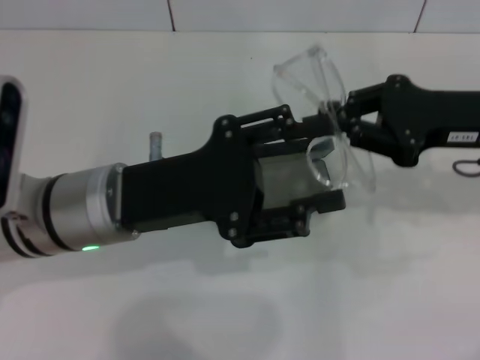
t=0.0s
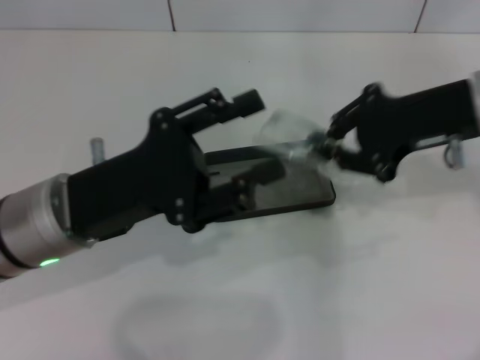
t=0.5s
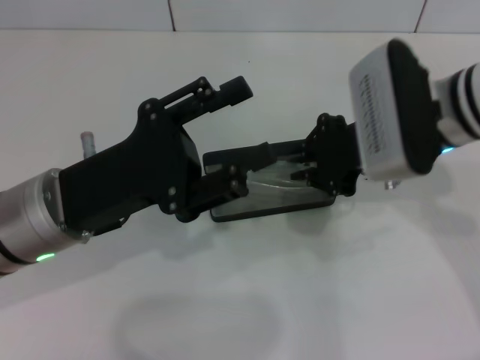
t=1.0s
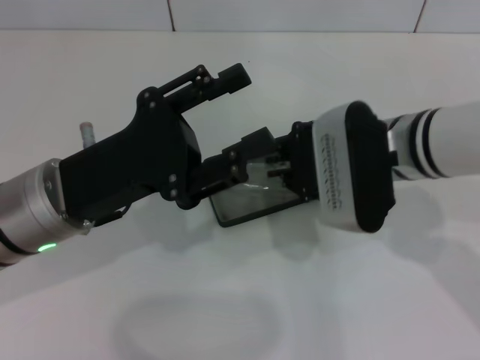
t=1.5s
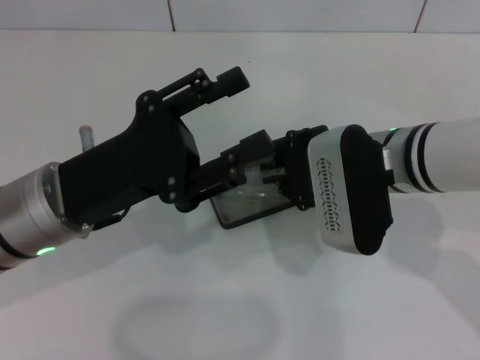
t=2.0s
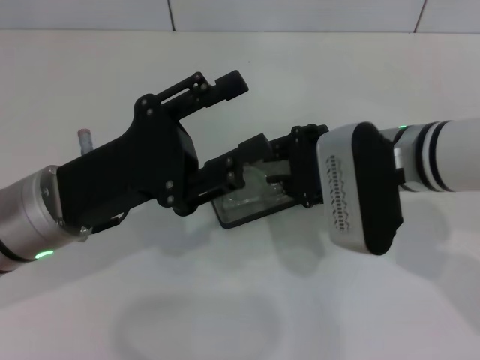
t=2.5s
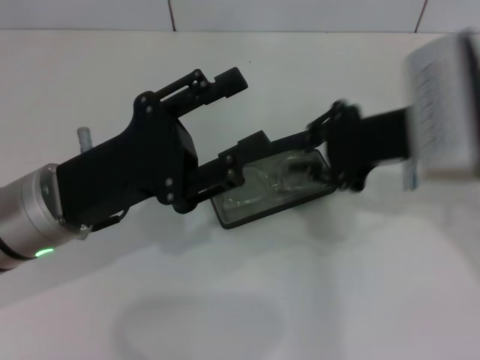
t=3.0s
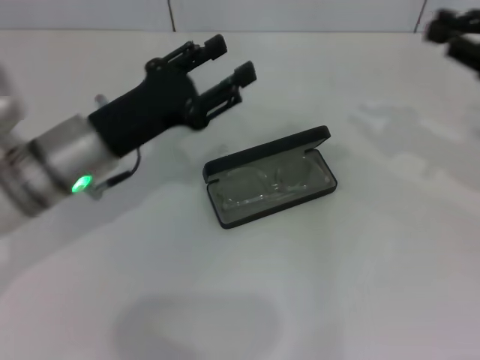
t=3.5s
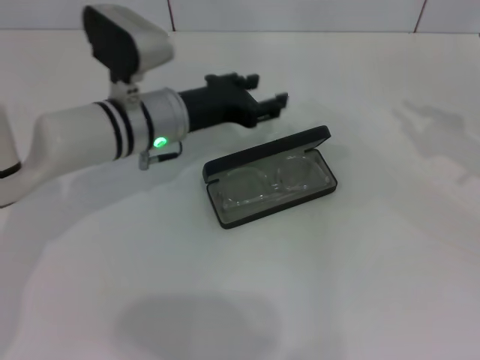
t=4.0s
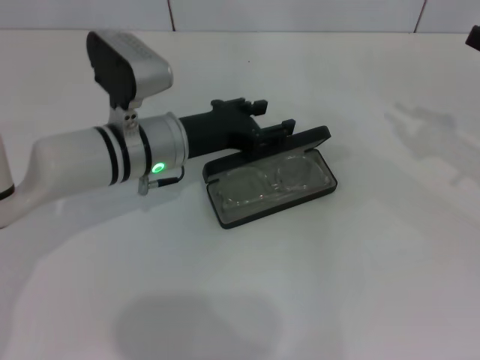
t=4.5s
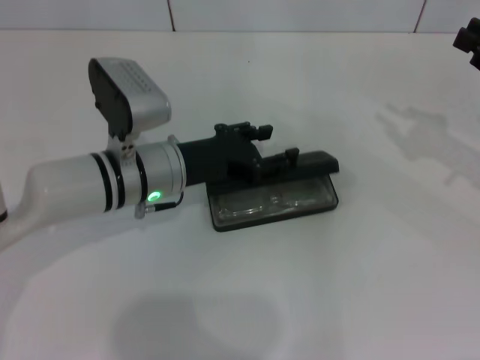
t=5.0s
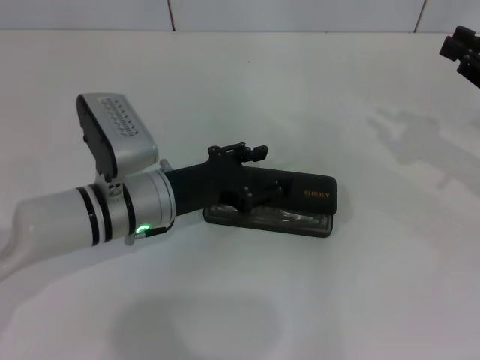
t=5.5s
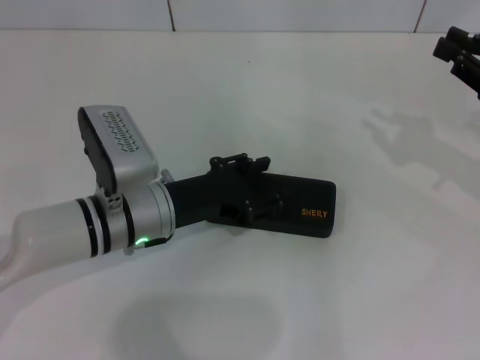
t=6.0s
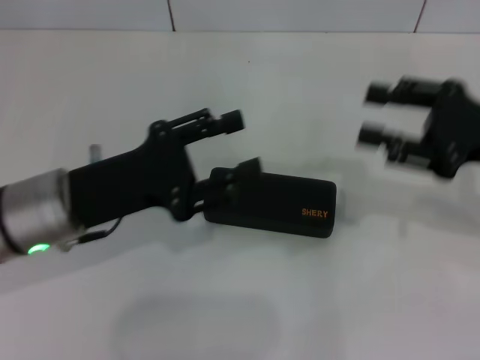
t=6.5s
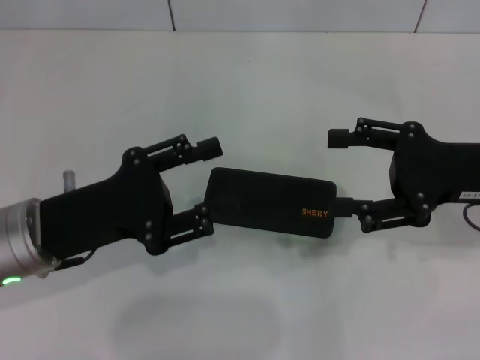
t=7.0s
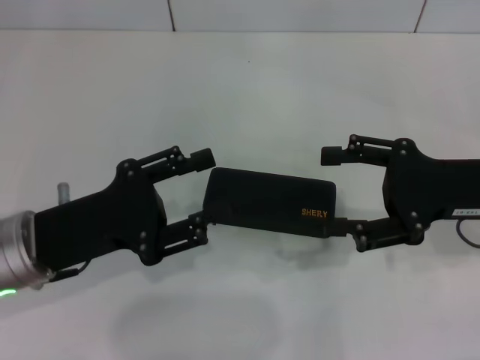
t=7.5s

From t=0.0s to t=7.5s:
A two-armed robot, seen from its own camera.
Step, from t=0.0s to t=2.5s: Put the glasses into the case with your right hand.
Step, from t=3.0s to t=6.0s: Close the glasses case with your left hand.
From t=0.0s to t=2.0s: The right gripper moves to the left, roughly 10 cm.
From t=2.0s to t=4.0s: The left gripper travels forward and to the right by approximately 15 cm; the right gripper shifts roughly 25 cm to the right.
From t=4.0s to t=5.5s: The left gripper heads backward, covering some 5 cm.
From t=5.5s to t=7.5s: The right gripper moves to the left, some 10 cm, and opens; the left gripper shifts about 10 cm to the left and backward.

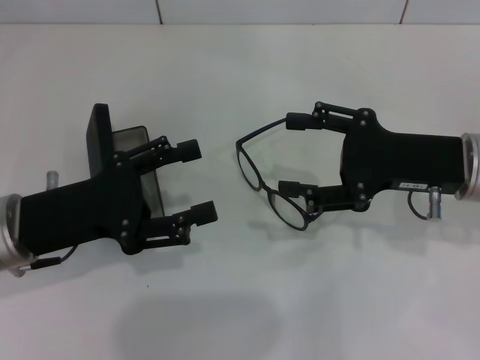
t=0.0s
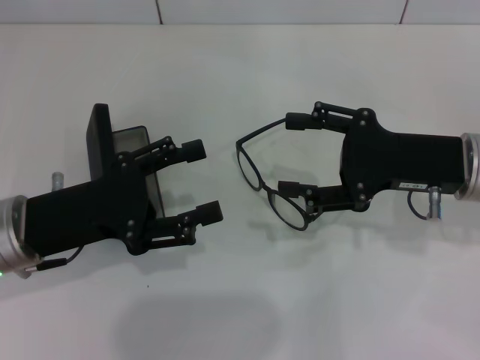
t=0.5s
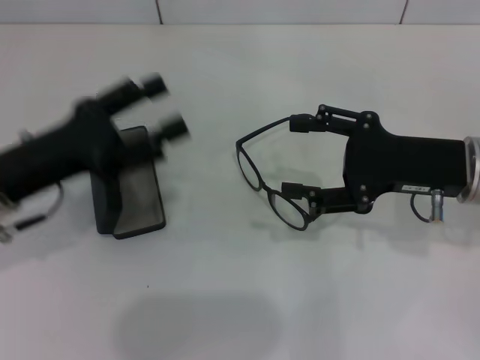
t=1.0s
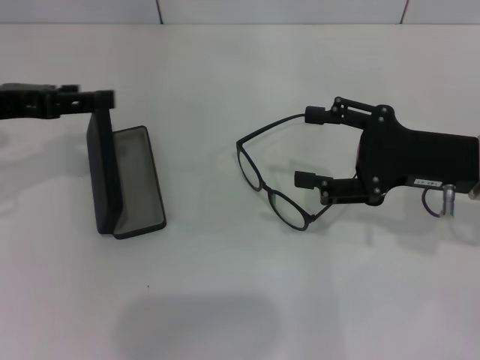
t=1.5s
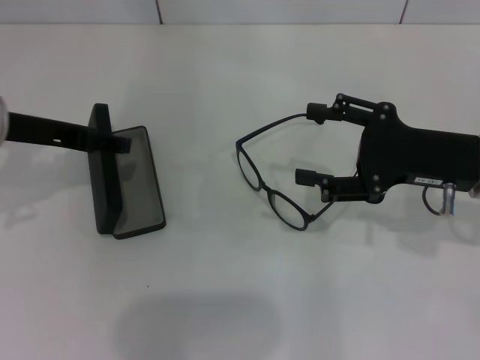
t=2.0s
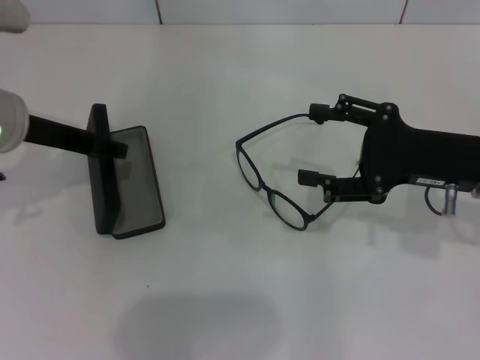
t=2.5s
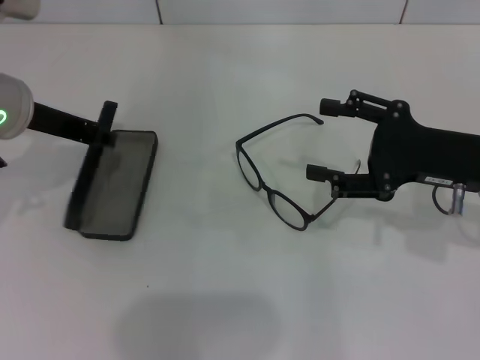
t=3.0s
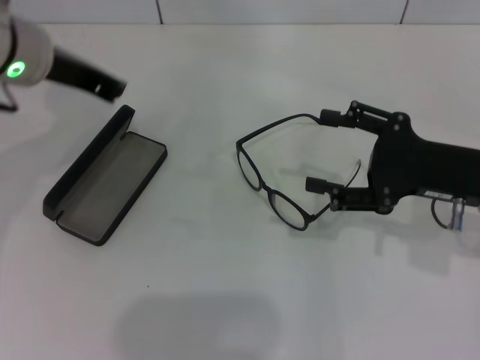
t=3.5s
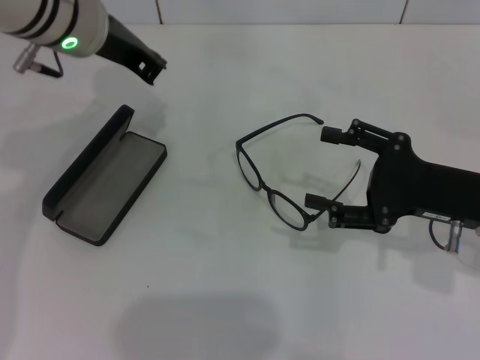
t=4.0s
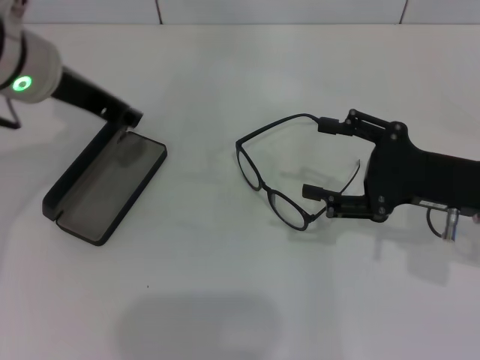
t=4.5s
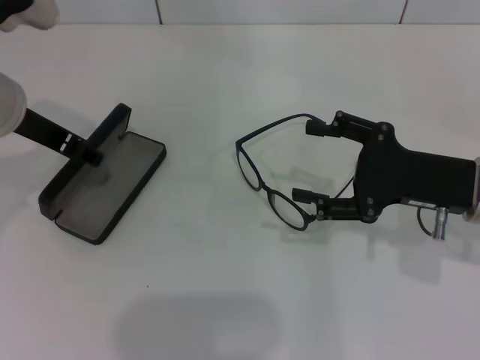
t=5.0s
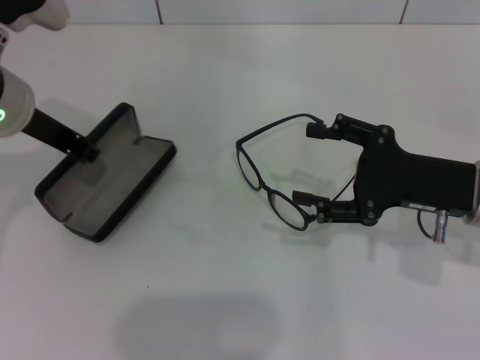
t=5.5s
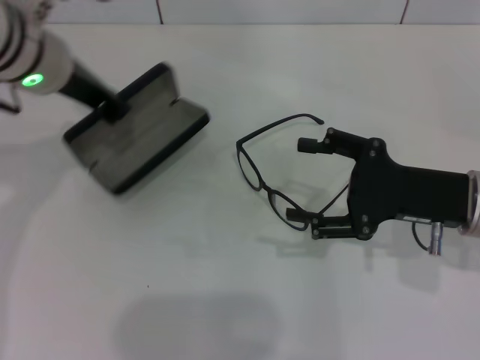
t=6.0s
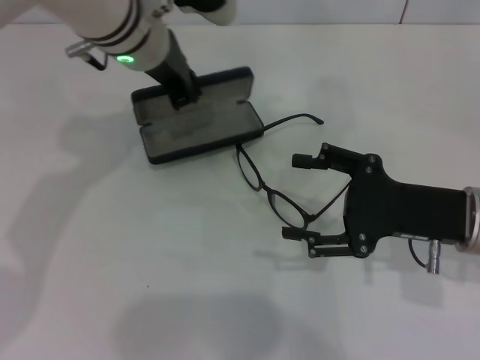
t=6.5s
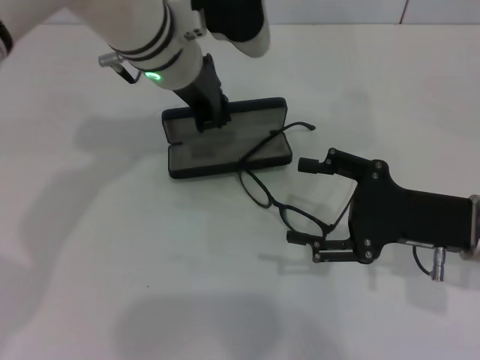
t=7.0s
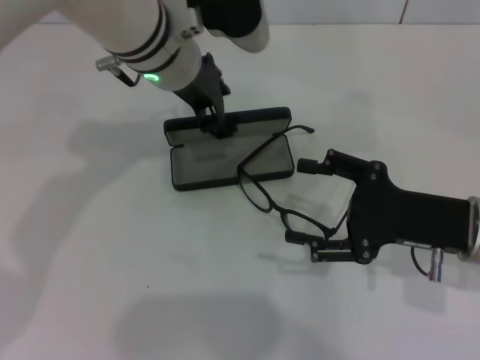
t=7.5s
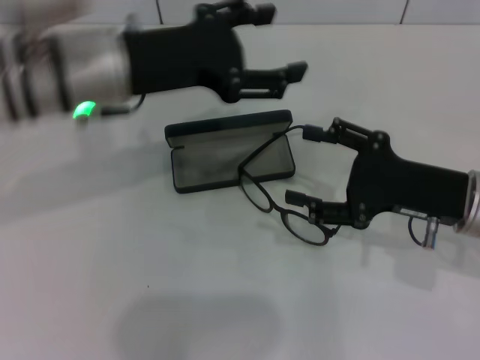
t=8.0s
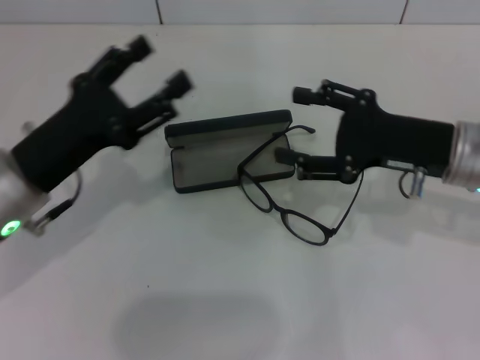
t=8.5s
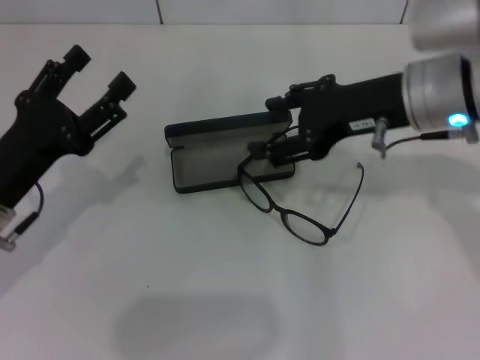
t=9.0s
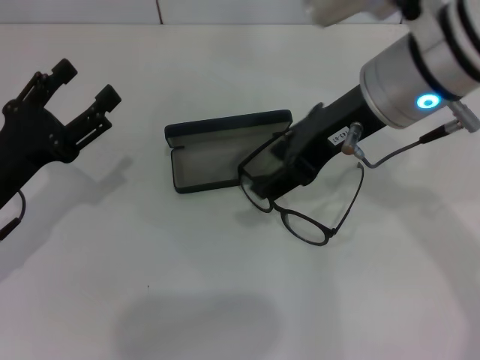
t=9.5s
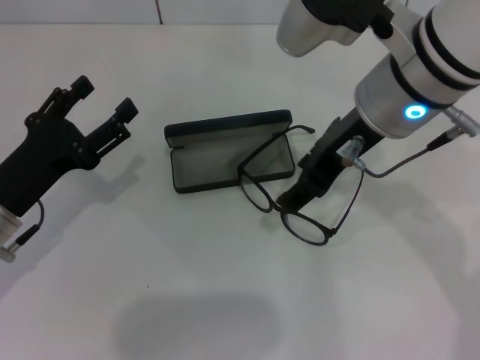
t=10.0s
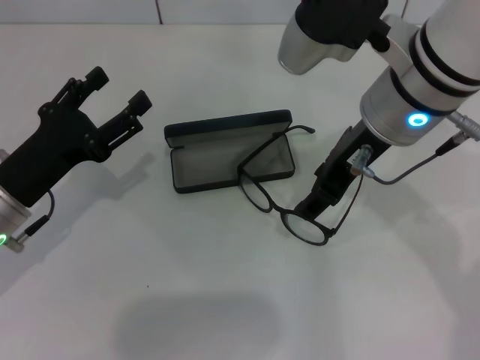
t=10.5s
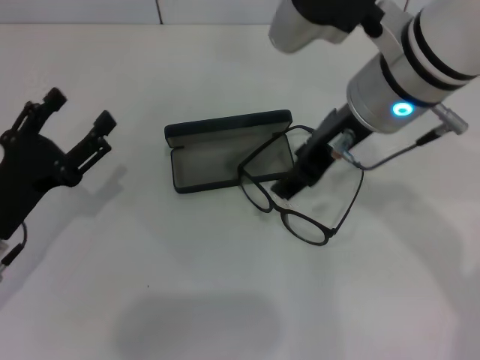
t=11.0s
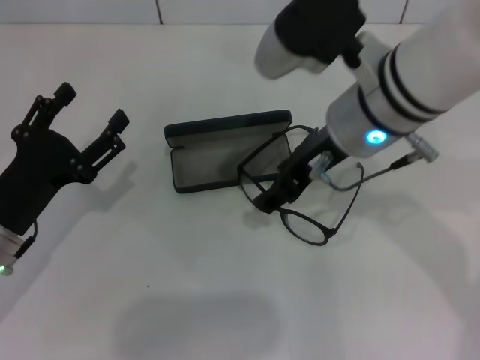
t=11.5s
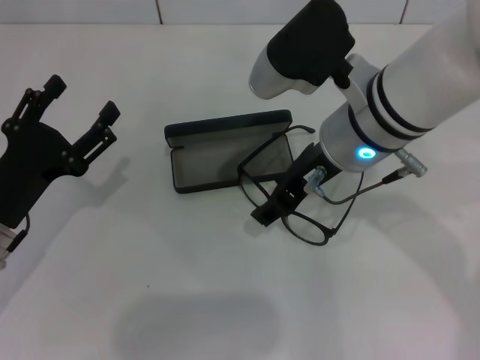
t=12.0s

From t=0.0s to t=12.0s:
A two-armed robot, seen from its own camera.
Step, from t=0.0s to t=5.0s: Grab the glasses case with your left hand.
Step, from t=5.5s to t=7.5s: Place the glasses case in the center of the table with your left hand.
From t=0.0s to t=2.0s: The left gripper travels upward and forward by about 10 cm.
From t=2.0s to t=4.0s: The left gripper is displaced to the right and forward by approximately 10 cm, and closes up.
From t=4.0s to t=6.0s: The left gripper opens and closes again.
From t=6.0s to t=8.0s: The left gripper goes to the right and returns, some 10 cm each way, and opens its fingers.
From t=8.0s to t=10.0s: The left gripper goes approximately 20 cm downward, to the left and backward; the right gripper heads upward and to the left, covering some 20 cm.
From t=10.0s to t=12.0s: The right gripper travels downward by about 5 cm.

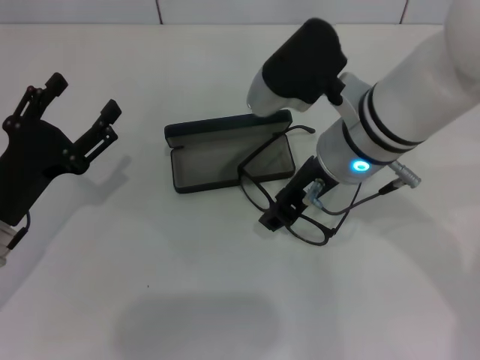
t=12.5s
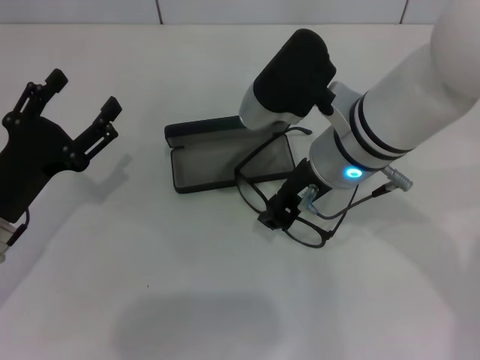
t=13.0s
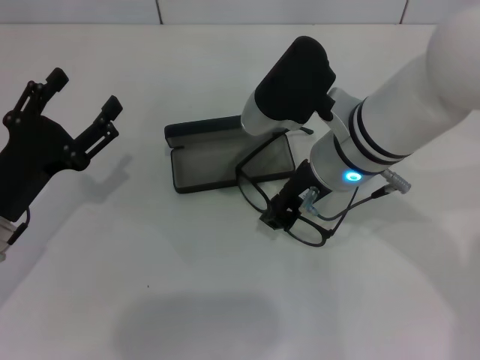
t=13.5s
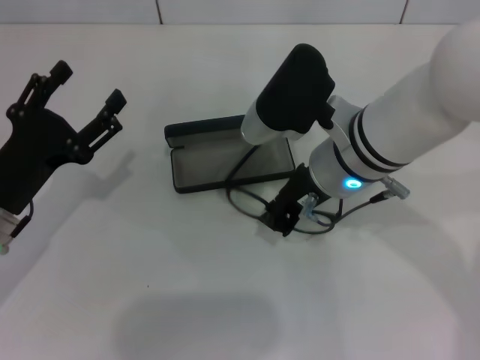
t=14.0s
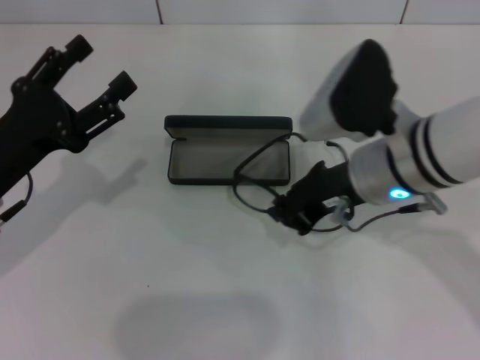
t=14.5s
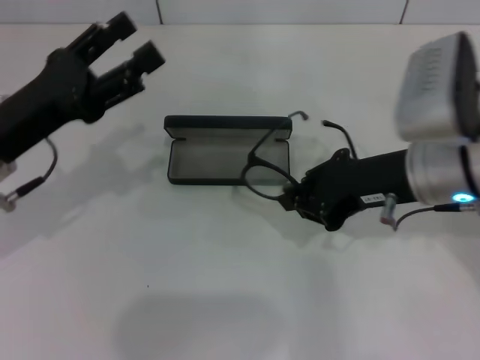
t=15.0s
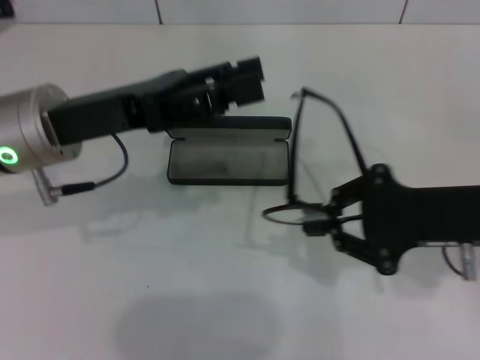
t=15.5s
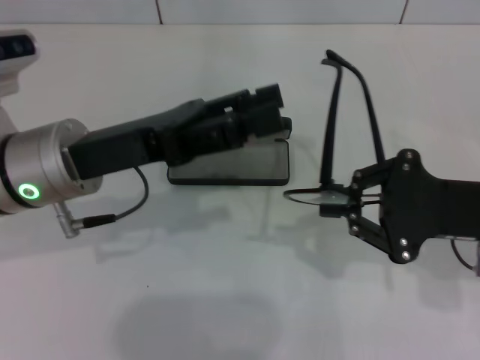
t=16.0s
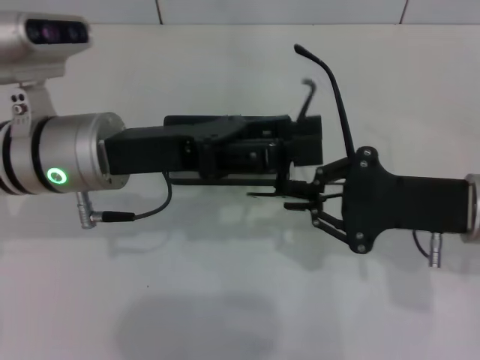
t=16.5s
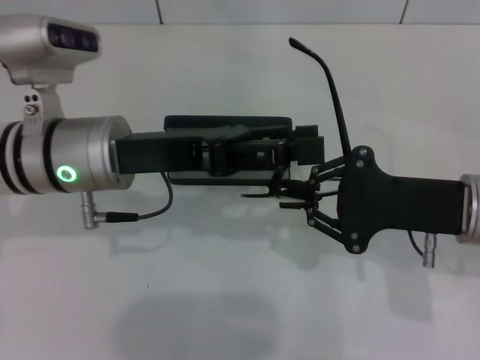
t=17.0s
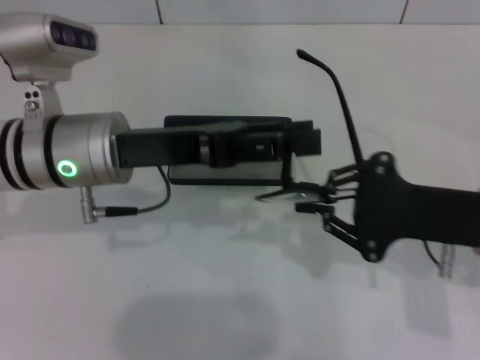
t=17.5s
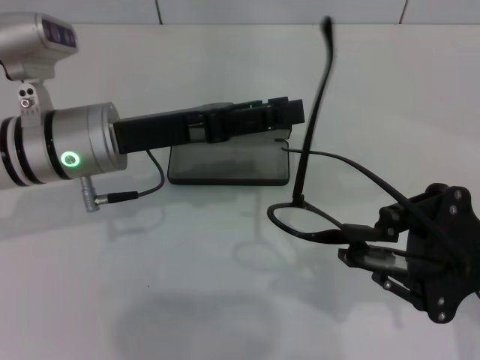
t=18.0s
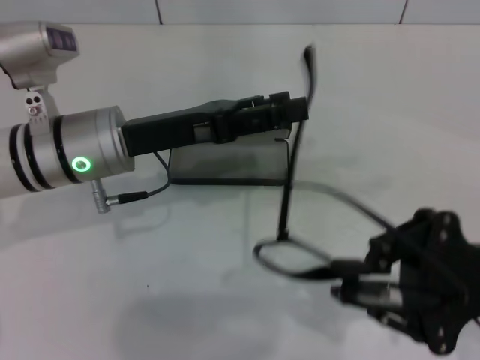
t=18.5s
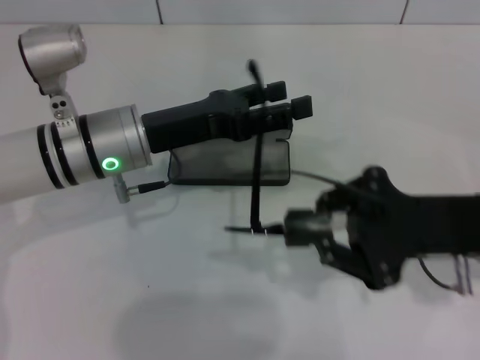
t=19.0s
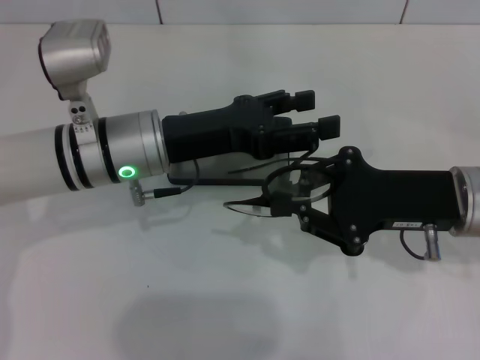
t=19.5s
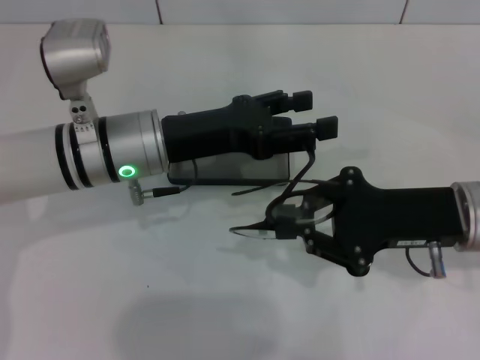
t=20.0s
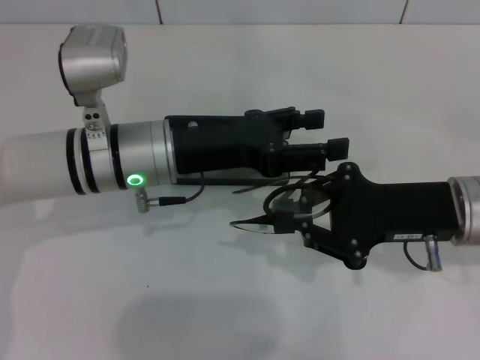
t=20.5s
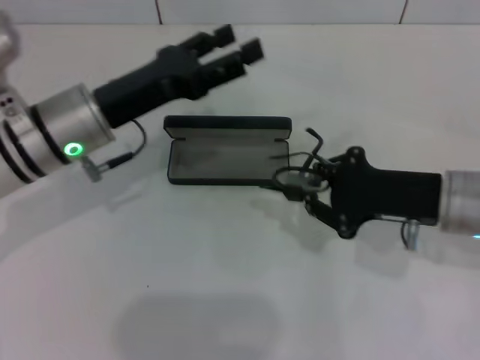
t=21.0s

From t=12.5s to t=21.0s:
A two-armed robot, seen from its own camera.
Step, from t=14.5s to t=20.5s: Fold the frame with your left hand.
From t=12.5s to t=14.5s: The right gripper closes up.
From t=14.5s to t=16.5s: The left gripper goes some 15 cm to the right, upward and forward; the right gripper heads to the right, covering approximately 10 cm.
